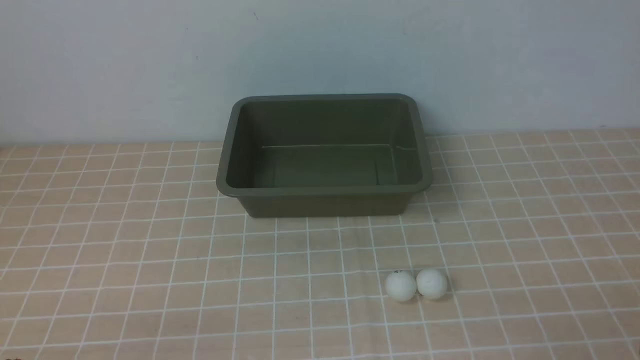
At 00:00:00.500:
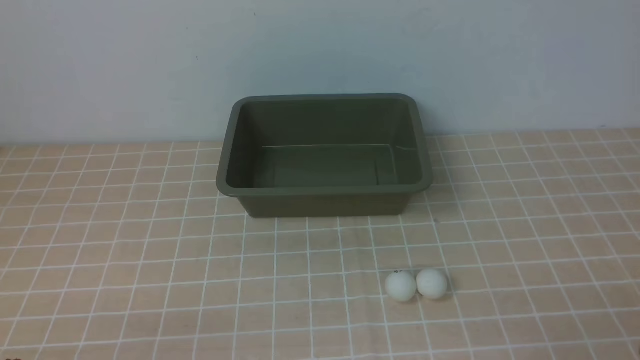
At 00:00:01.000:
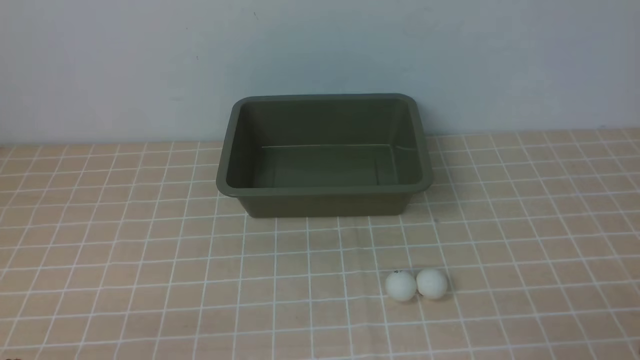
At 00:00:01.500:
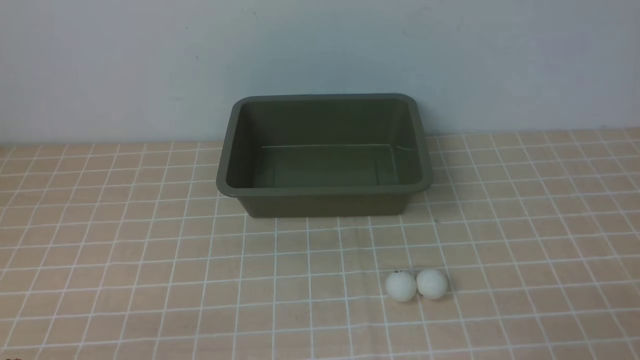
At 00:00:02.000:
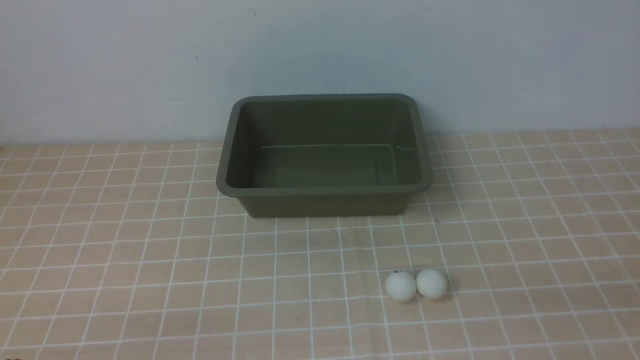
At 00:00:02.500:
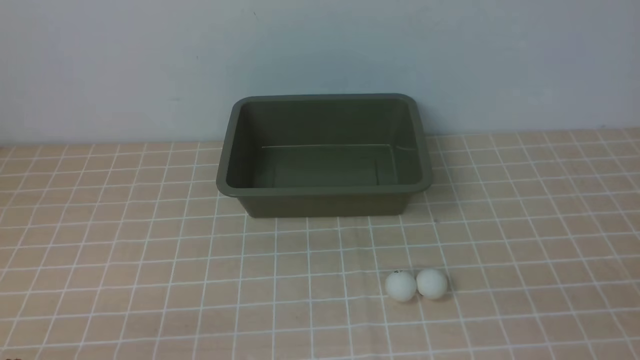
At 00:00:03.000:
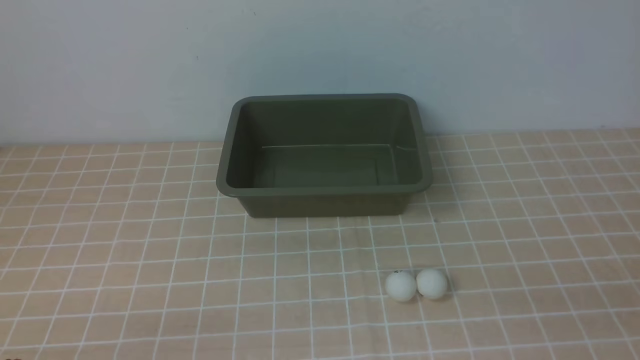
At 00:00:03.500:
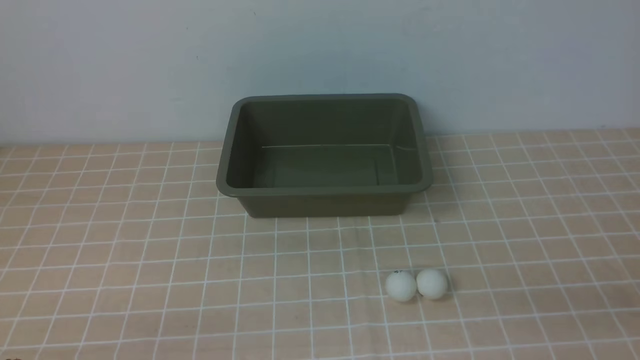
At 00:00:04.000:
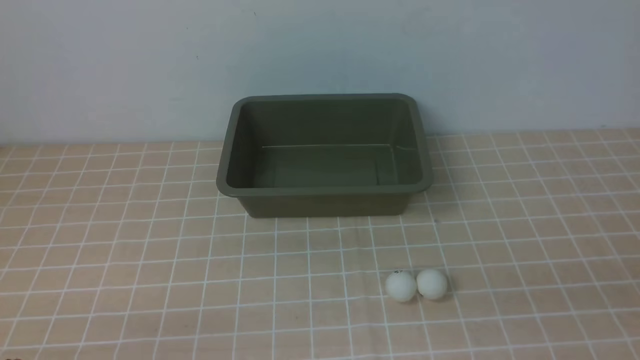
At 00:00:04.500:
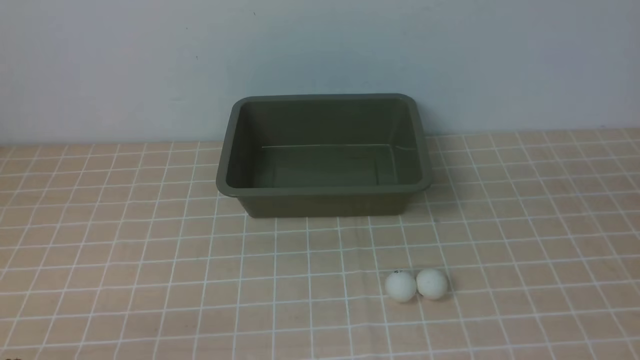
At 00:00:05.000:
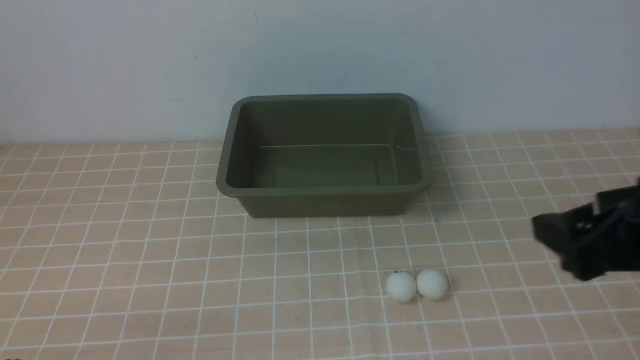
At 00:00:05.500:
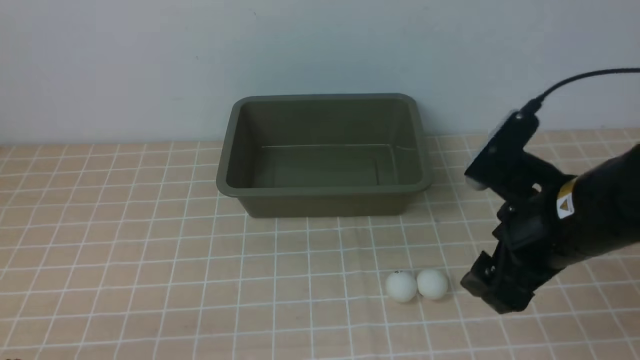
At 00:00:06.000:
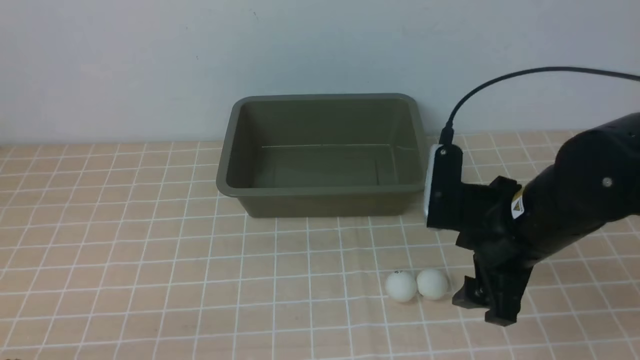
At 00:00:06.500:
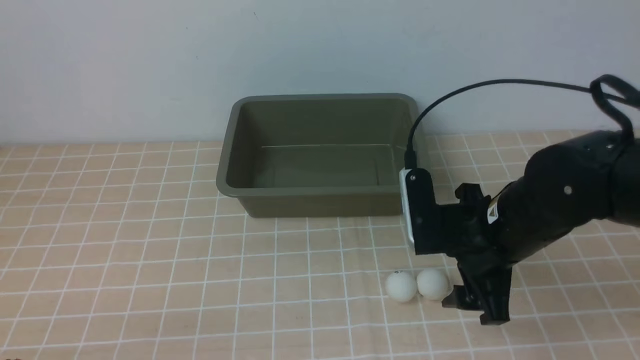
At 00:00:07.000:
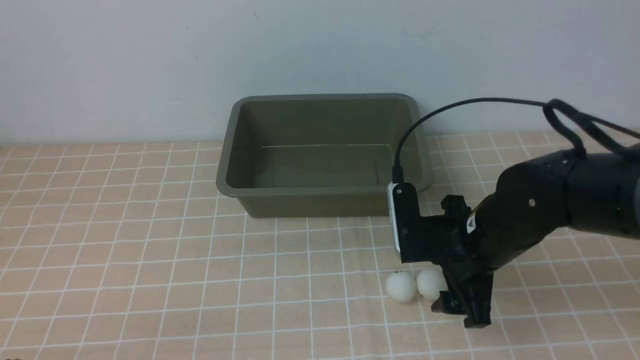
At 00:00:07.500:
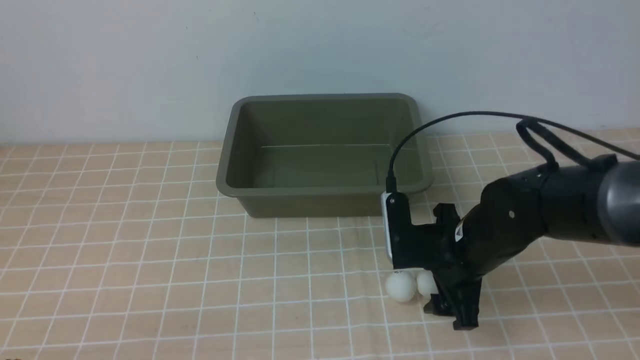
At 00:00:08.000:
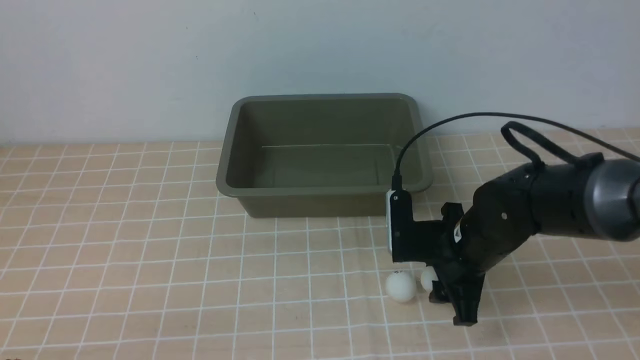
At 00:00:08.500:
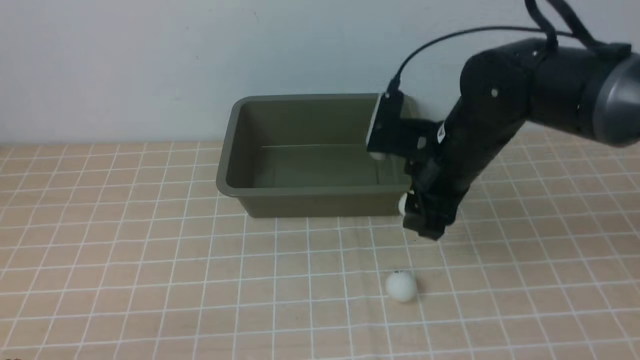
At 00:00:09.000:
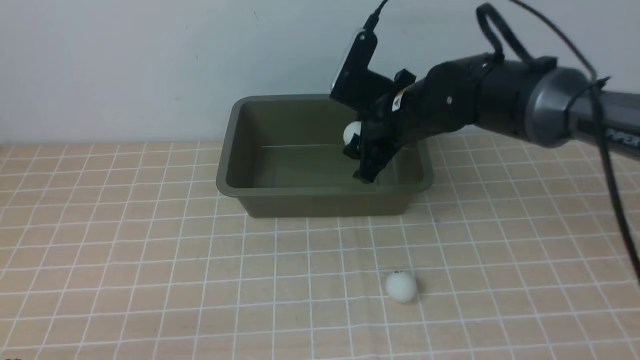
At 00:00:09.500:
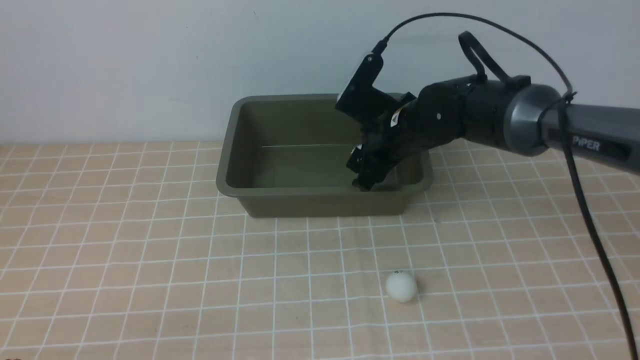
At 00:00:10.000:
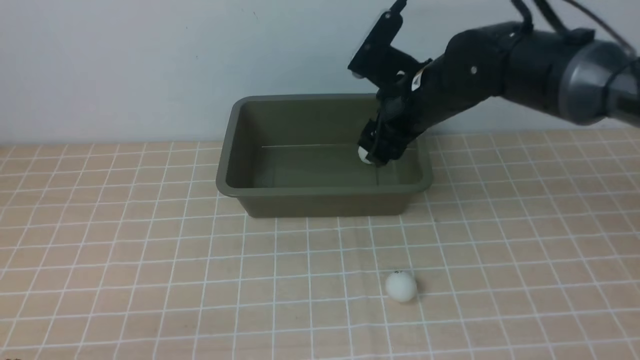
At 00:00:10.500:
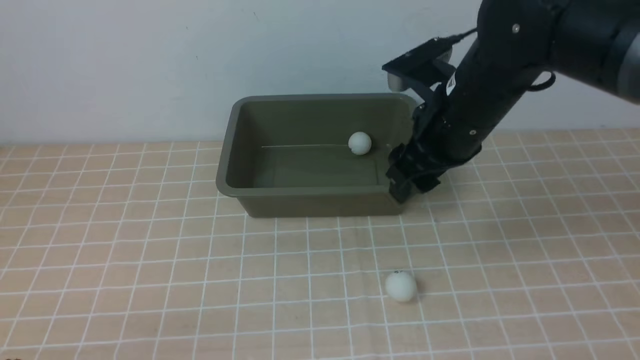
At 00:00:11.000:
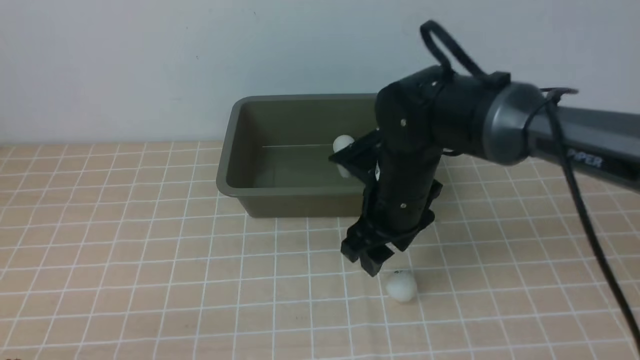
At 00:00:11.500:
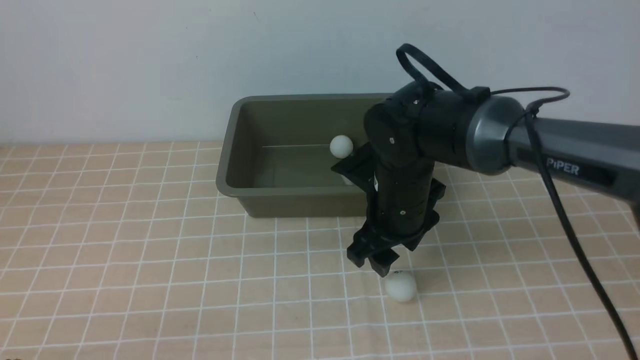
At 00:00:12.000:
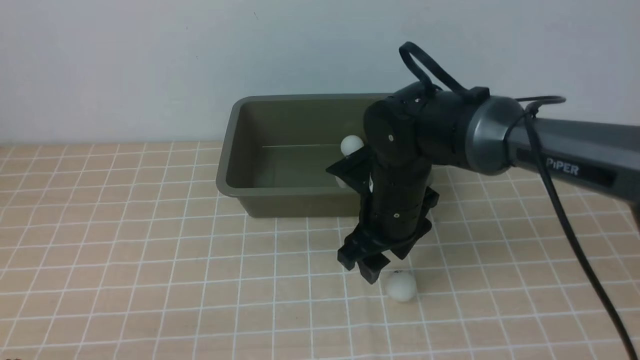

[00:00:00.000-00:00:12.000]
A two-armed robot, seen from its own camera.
Step, 00:00:00.000 to 00:00:08.000: use the right arm to clamp the table tennis ball closest to it.
Step, 00:00:08.500 to 00:00:09.500: use the right arm to put the table tennis ball into the box.
00:00:04.000 to 00:00:06.000: The right gripper shifts approximately 25 cm forward and to the left.
00:00:06.000 to 00:00:08.000: The right gripper moves downward and forward, about 10 cm, and closes up.
00:00:08.000 to 00:00:10.000: The right gripper heads upward and forward, covering approximately 15 cm.
00:00:10.000 to 00:00:12.000: The right gripper shifts roughly 10 cm downward and backward.

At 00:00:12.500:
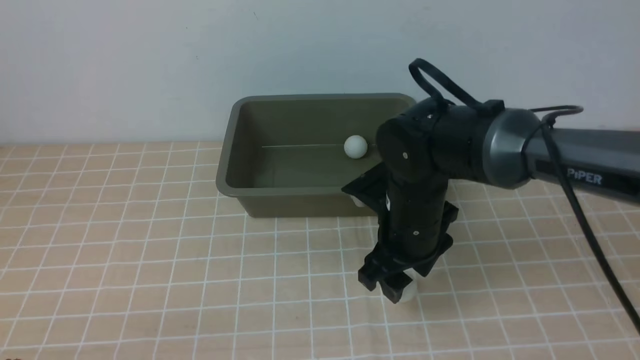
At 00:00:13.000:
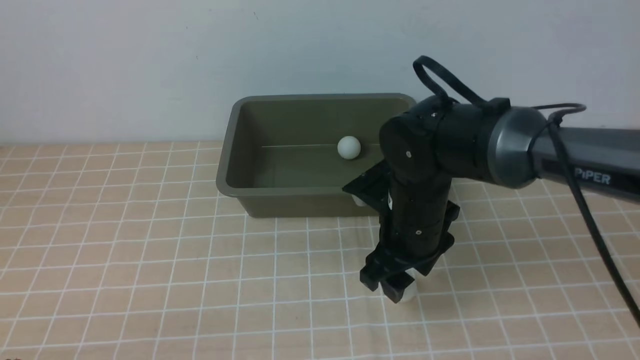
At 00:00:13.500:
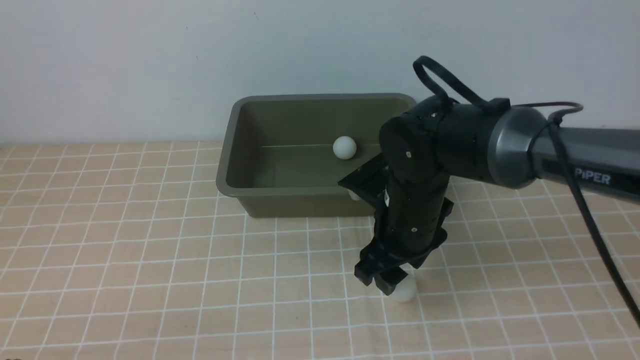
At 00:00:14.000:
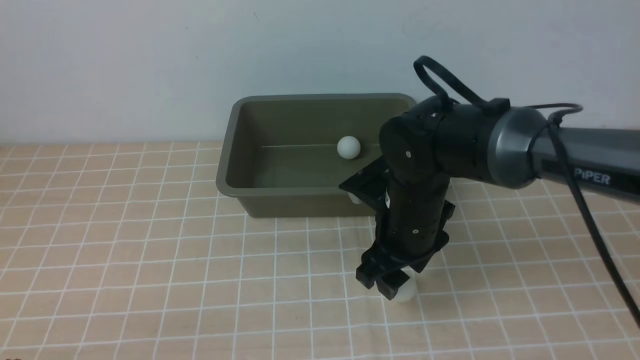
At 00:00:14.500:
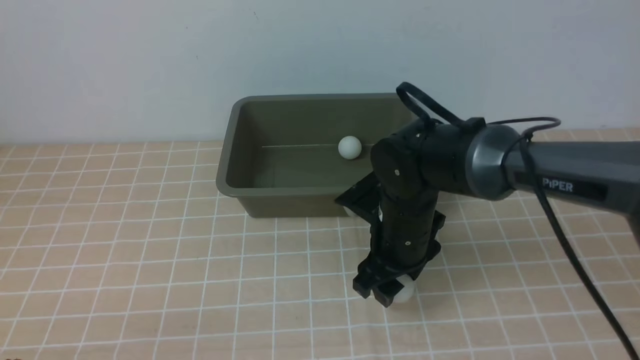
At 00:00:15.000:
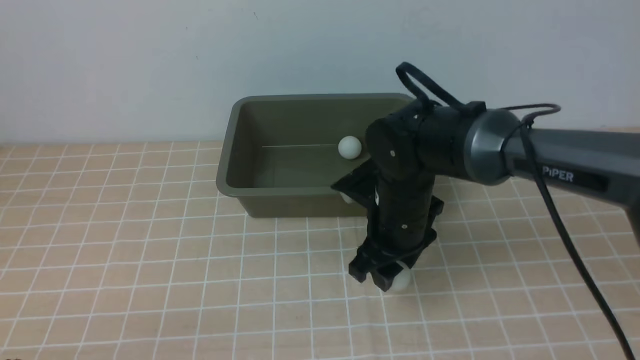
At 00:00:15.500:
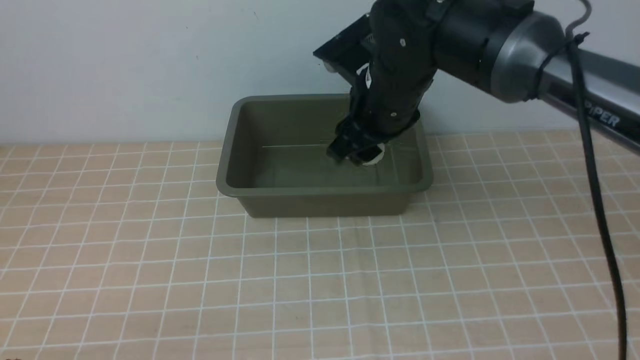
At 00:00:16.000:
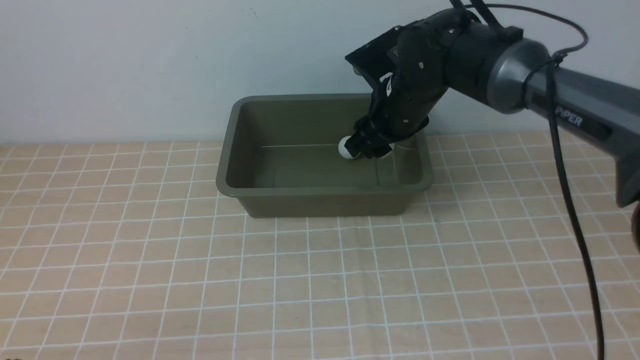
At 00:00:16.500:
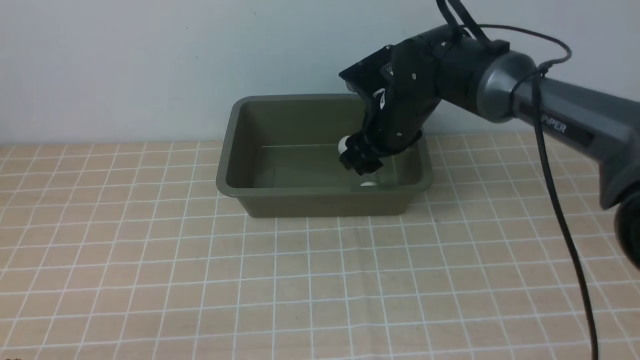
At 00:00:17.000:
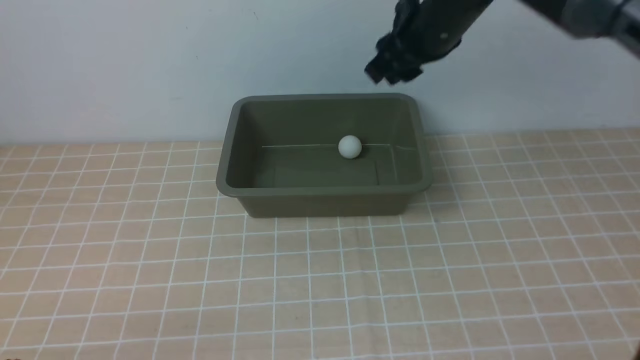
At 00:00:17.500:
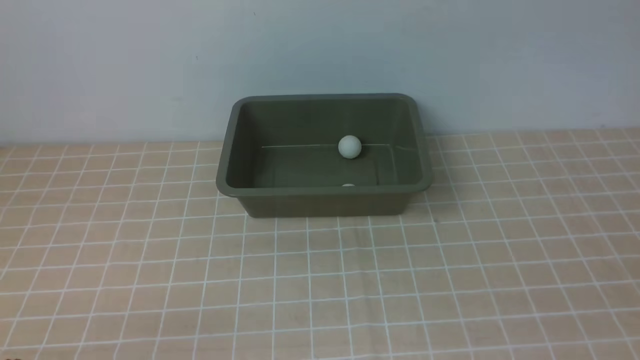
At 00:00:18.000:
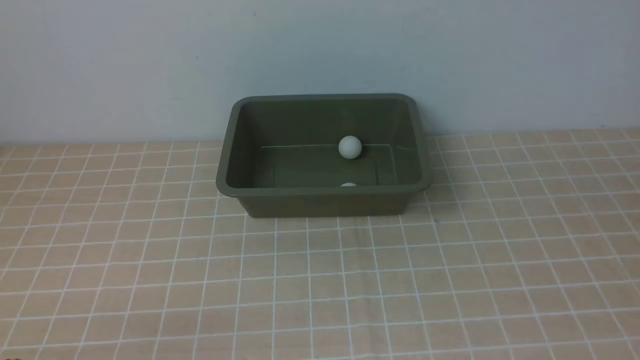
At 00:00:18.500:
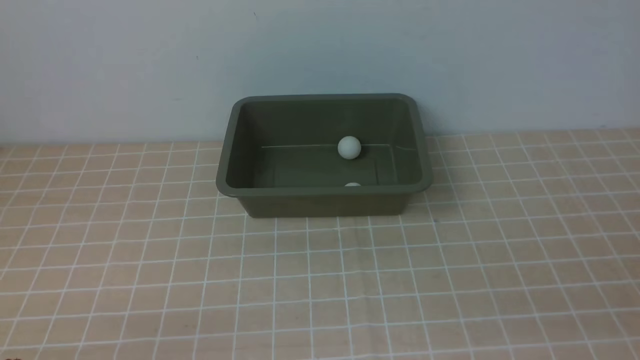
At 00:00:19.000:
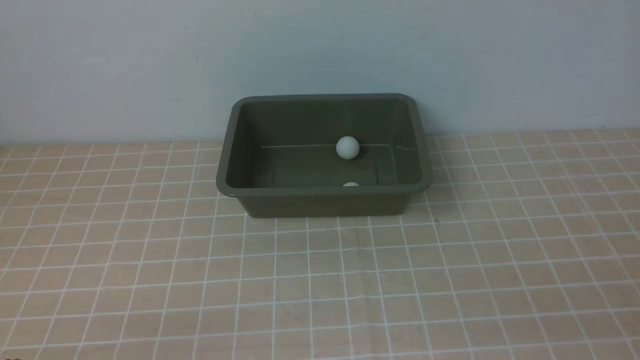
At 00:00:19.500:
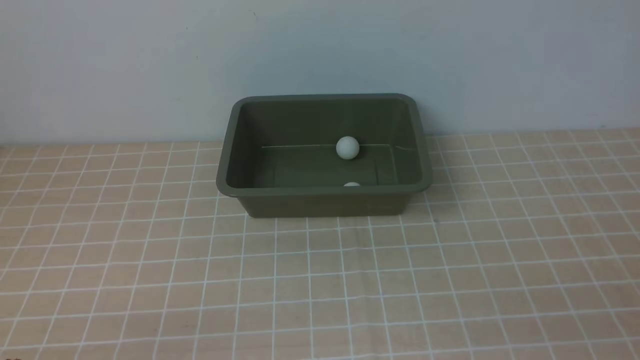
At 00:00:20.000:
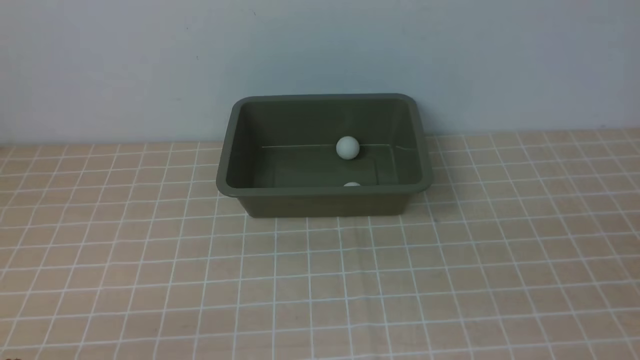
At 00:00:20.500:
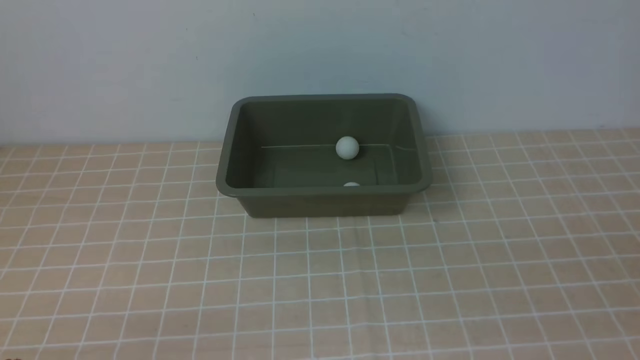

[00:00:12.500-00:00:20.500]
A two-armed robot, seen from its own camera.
Step, 00:00:12.500 to 00:00:15.000: use the right arm to clamp the table tennis ball closest to it.
Step, 00:00:15.500 to 00:00:16.500: use the right arm to put the table tennis ball into the box.
00:00:12.500 to 00:00:14.500: The grippers move only a little.
00:00:14.500 to 00:00:16.500: The right gripper moves forward and upward, some 15 cm.
00:00:16.500 to 00:00:18.500: The right gripper goes roughly 40 cm backward and to the right, and closes.
